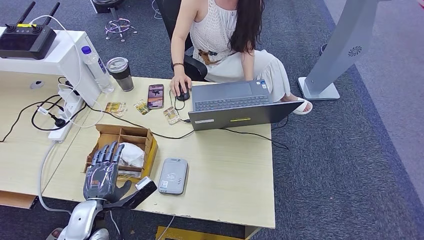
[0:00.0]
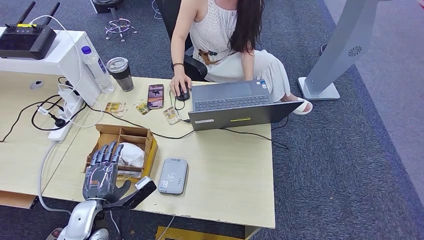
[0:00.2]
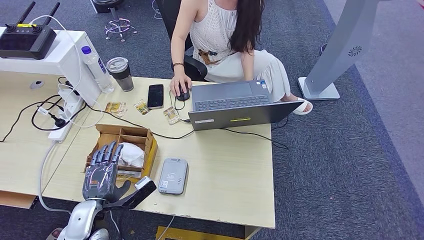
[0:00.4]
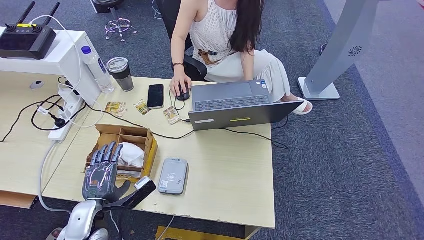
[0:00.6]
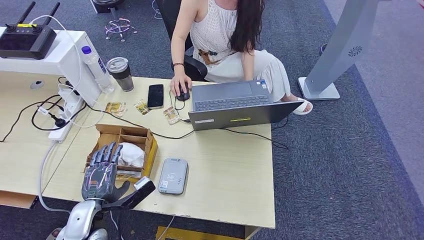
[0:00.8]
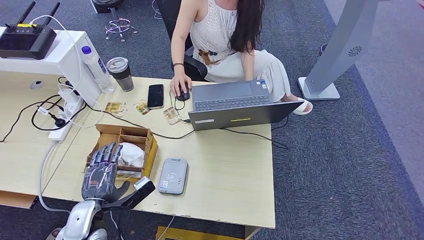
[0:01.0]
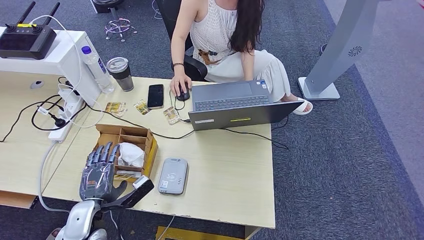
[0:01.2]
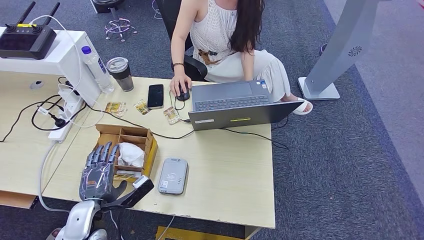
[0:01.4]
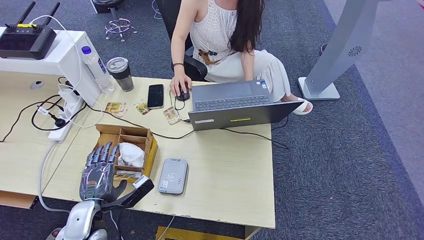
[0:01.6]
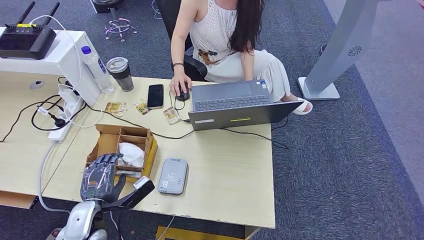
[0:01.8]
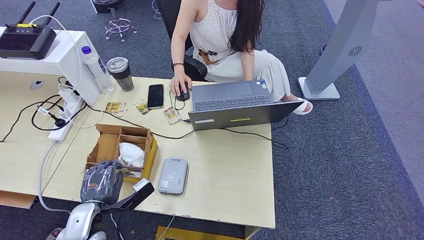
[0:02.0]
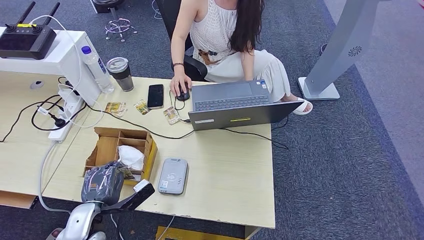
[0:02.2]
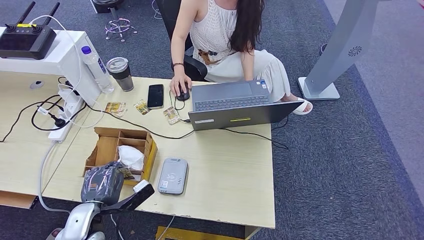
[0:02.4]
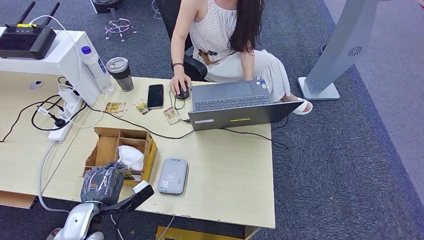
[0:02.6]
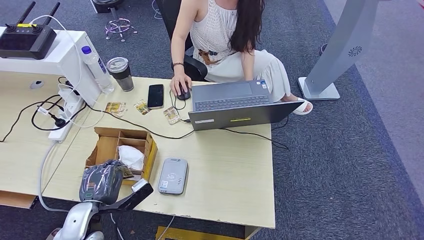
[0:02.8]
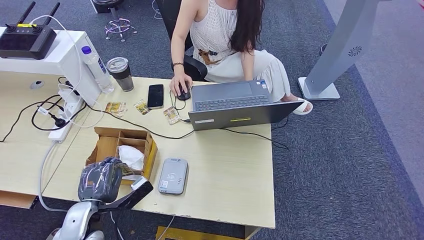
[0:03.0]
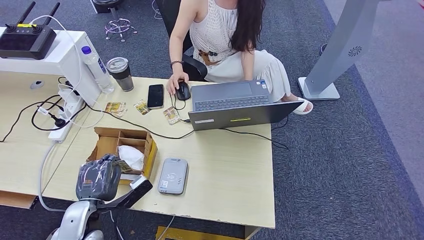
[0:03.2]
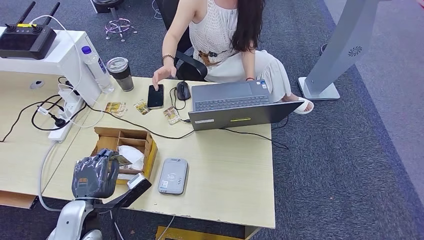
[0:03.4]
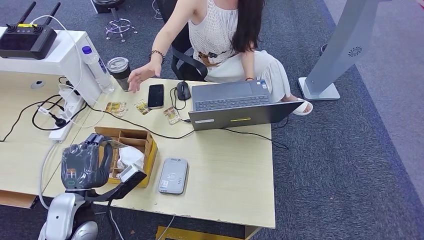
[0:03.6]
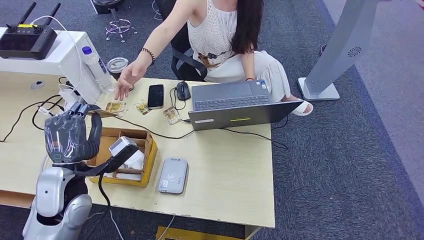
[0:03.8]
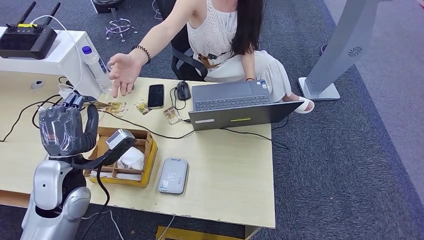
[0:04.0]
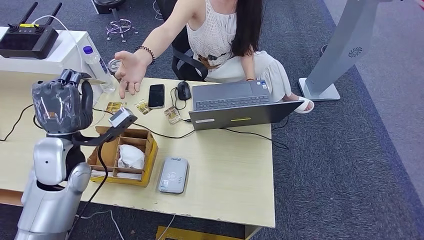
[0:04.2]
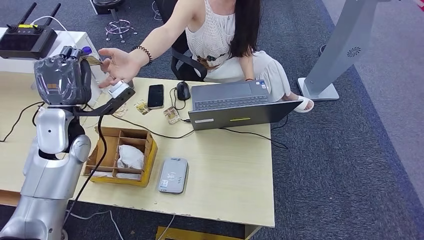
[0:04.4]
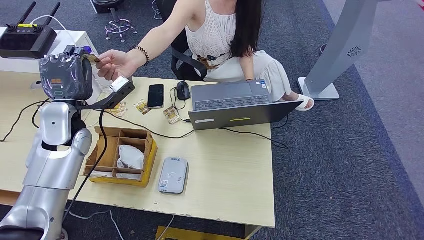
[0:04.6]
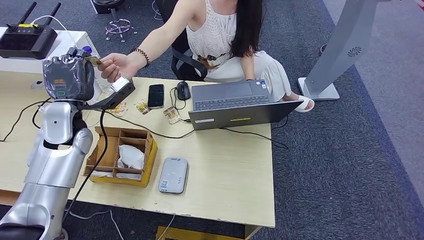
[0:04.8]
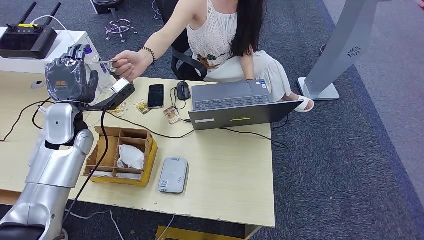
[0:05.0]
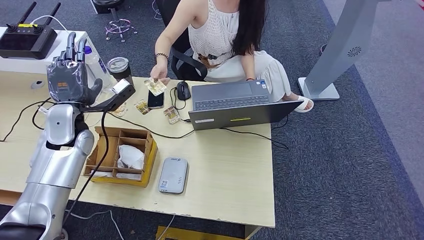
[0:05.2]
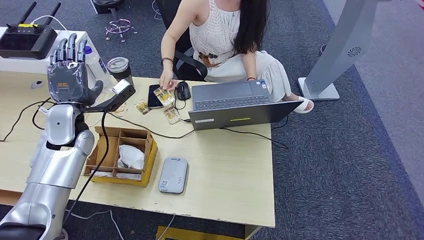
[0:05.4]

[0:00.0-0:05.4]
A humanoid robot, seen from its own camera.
Step, 0:01.2 to 0:04.0: Pick up the room key from the key card box.
Step, 0:04.2 to 0:05.4: Hand the room key to the person.
0:00.0 to 0:01.4: The two hands keep their place.
0:01.4 to 0:02.8: The hands make only small movements.
0:02.8 to 0:04.0: The left hand moves upward and forward, roughly 15 cm.
0:04.0 to 0:05.4: The left hand moves forward, about 10 cm.

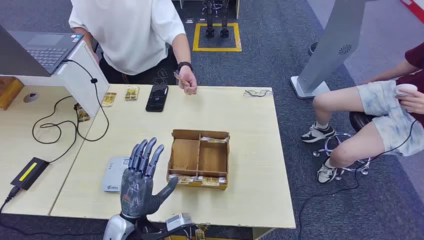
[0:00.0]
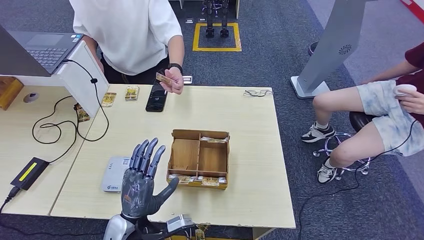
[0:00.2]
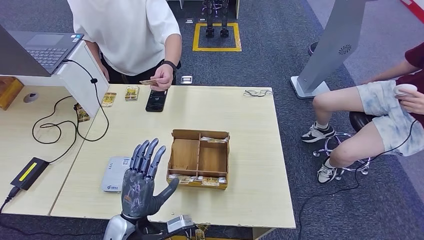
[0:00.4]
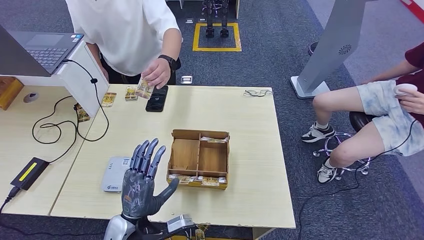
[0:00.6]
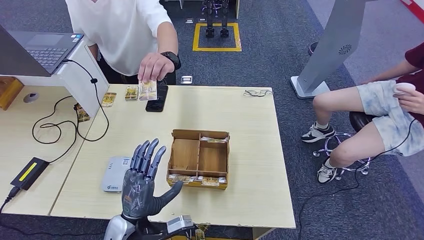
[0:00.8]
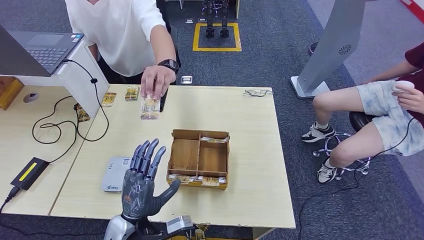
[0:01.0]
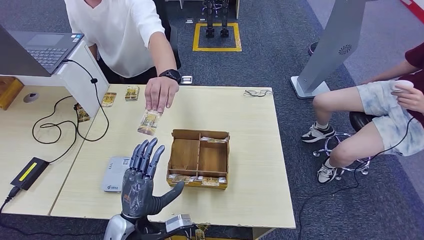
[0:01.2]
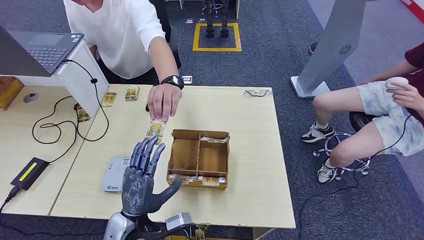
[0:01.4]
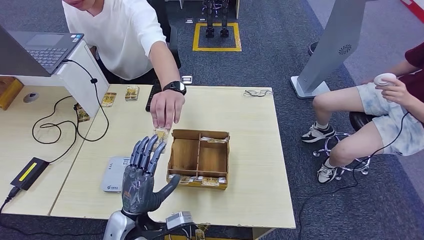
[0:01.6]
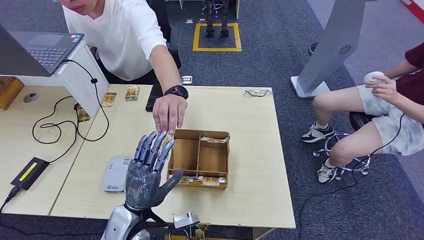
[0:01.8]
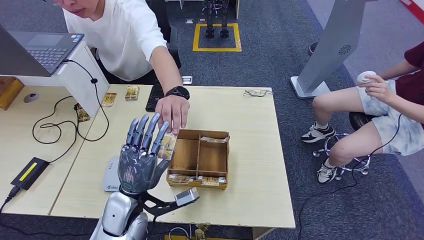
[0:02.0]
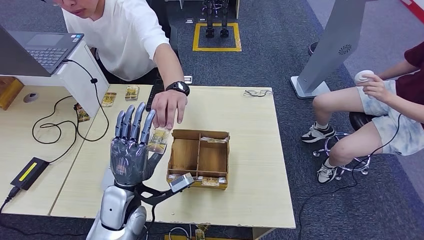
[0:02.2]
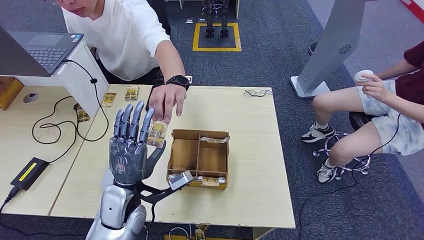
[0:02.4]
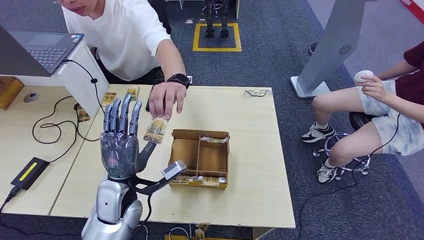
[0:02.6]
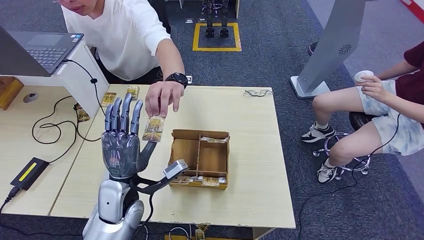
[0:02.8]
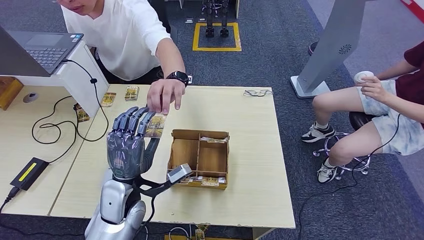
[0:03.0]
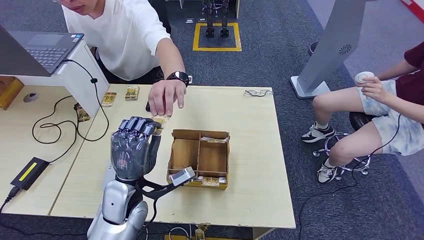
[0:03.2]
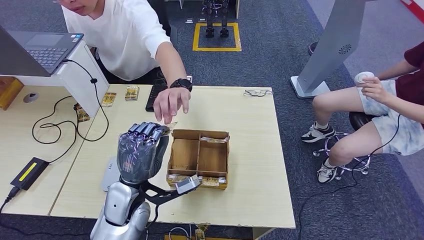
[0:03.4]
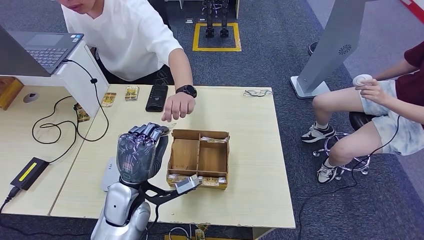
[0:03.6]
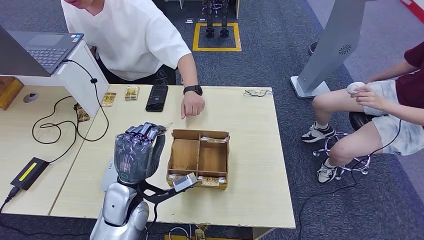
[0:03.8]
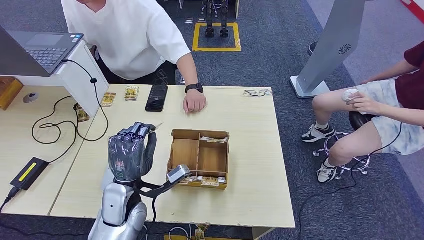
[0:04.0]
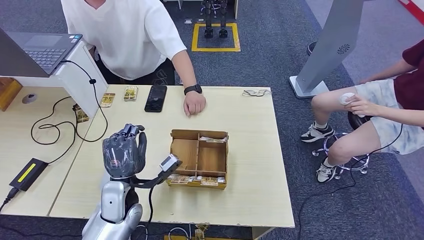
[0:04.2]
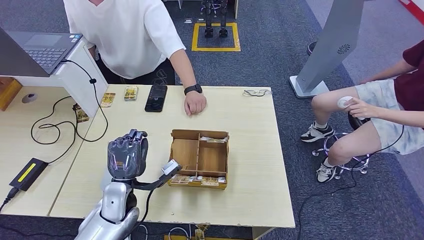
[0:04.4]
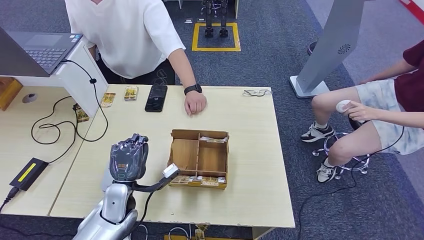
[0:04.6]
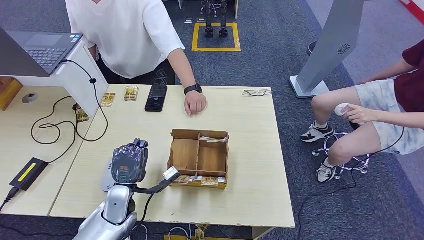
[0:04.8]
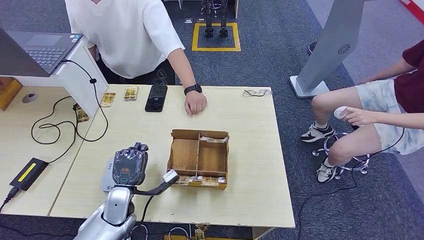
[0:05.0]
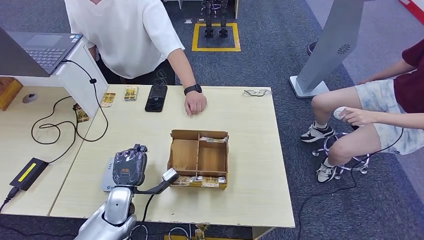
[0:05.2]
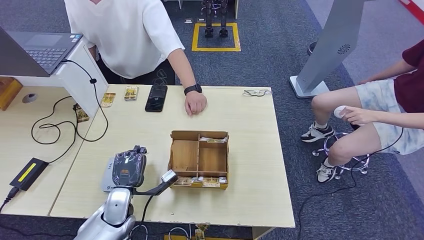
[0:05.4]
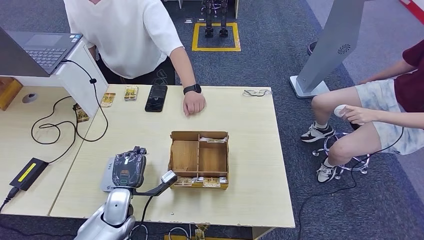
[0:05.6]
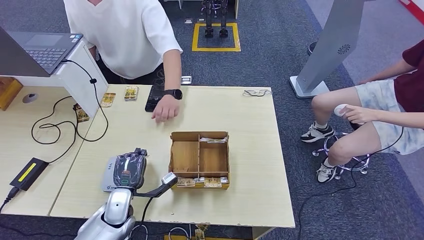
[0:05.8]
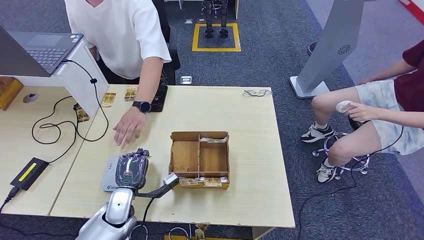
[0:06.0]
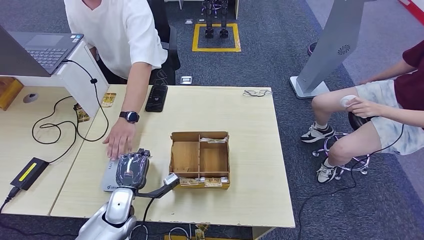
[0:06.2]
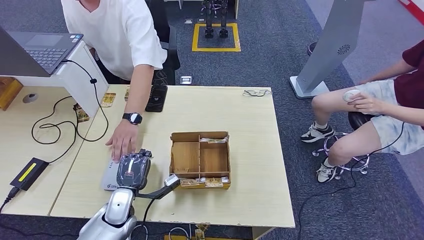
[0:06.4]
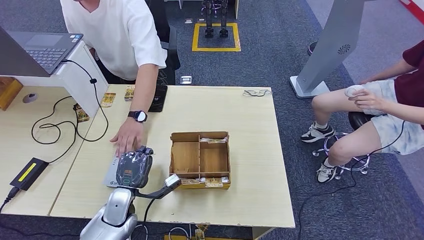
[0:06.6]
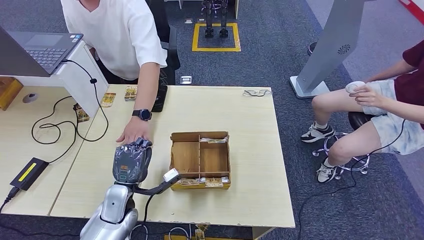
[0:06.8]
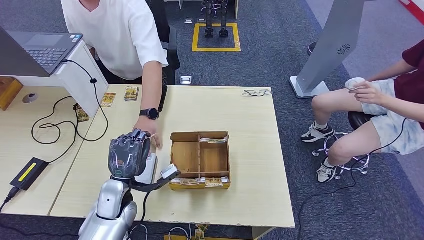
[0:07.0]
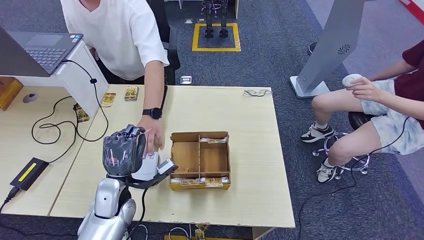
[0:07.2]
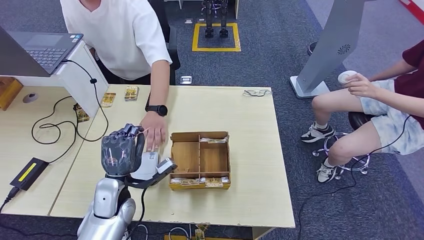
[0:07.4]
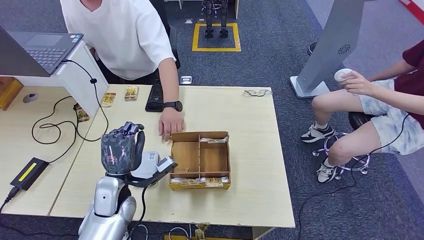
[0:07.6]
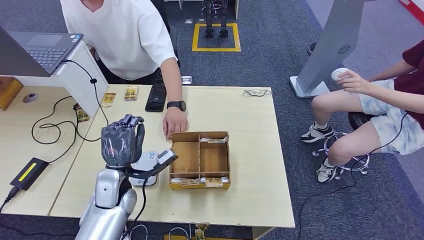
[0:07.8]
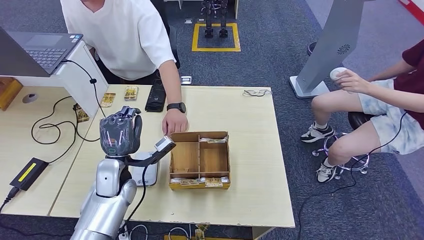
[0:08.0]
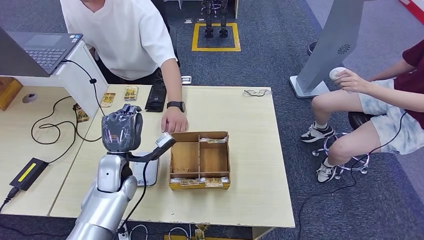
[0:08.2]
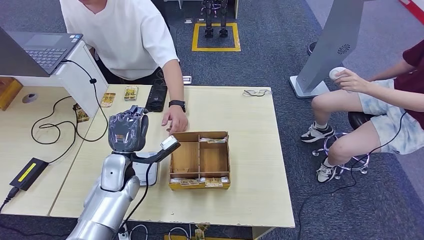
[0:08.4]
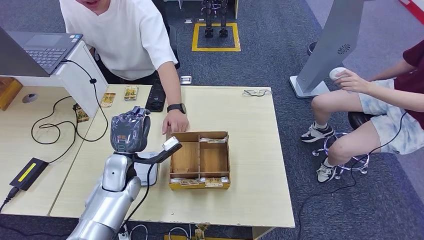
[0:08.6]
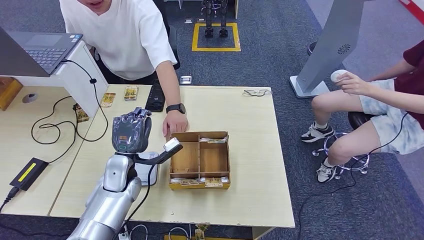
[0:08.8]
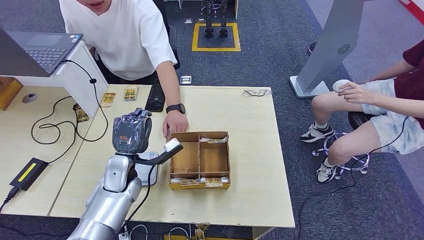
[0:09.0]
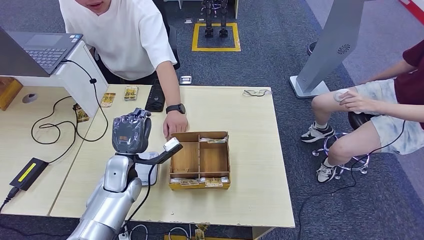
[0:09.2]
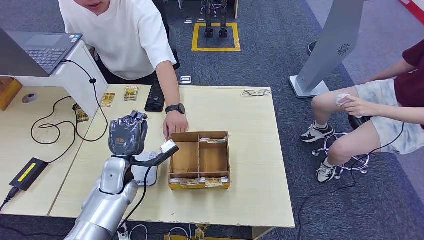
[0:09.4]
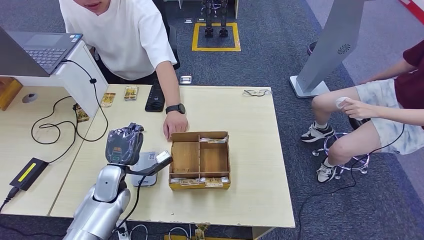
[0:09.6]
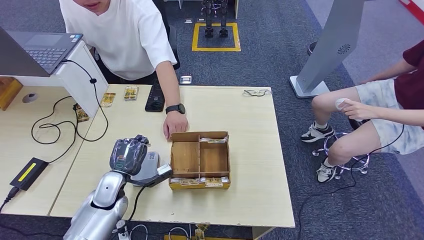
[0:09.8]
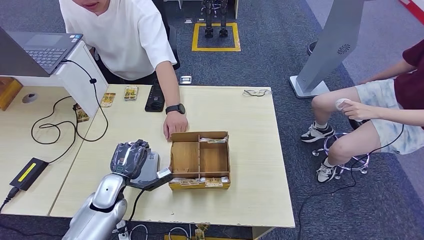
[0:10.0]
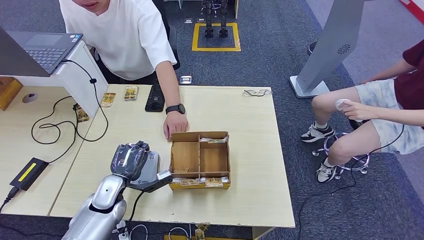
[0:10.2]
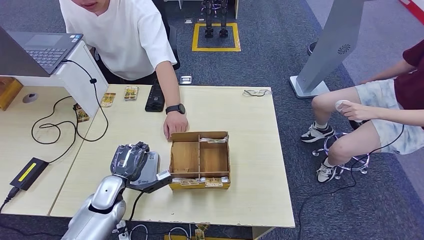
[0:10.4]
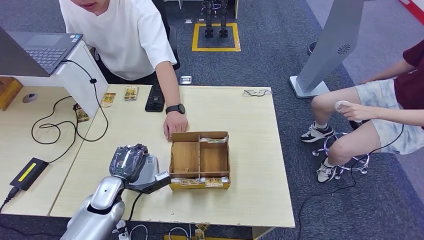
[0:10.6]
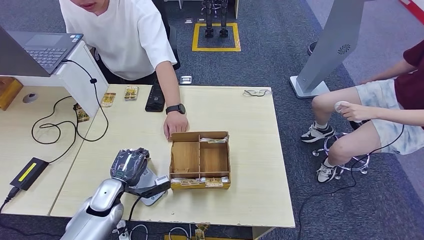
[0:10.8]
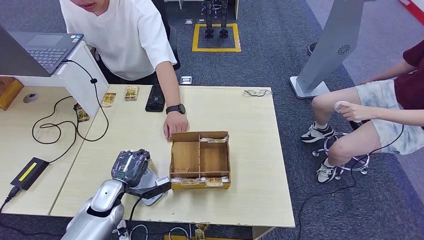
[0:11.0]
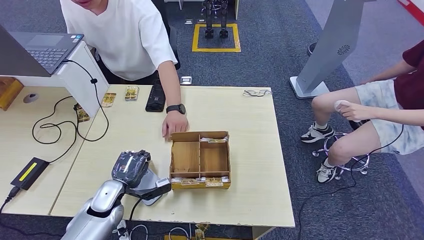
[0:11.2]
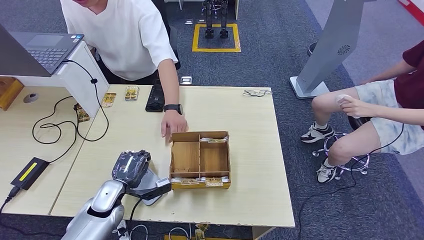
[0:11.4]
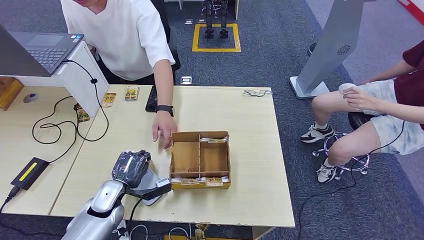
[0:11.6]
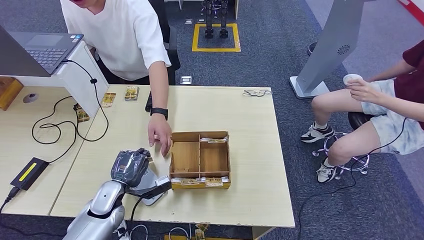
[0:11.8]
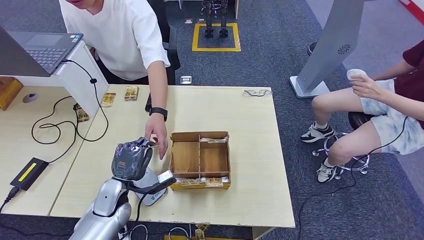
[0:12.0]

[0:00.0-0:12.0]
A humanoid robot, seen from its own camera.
Step, 0:00.0 to 0:03.6: Take the ID card from the person's hand.
Step, 0:04.0 to 0:10.4: Place the ID card on the card reader.
0:01.6 to 0:03.0: The left hand is displaced forward and upward by some 10 cm.
0:03.0 to 0:04.4: The left hand is displaced downward by about 5 cm.
0:04.4 to 0:06.0: The left hand is displaced downward by about 5 cm.
0:06.0 to 0:07.6: The left hand is displaced upward by some 10 cm.
0:07.6 to 0:09.0: The left hand moves forward, about 5 cm.
0:09.0 to 0:10.4: The left hand travels downward and to the left by some 10 cm.
0:10.4 to 0:12.0: The hands make only small movements.
